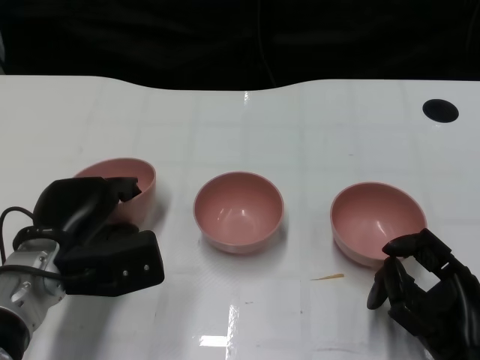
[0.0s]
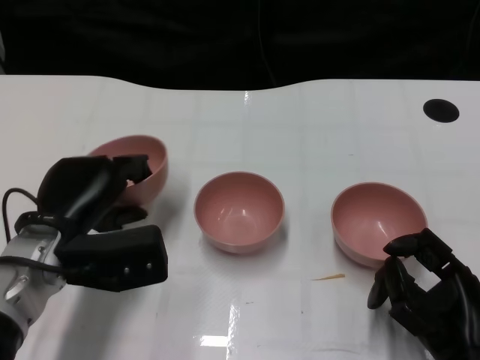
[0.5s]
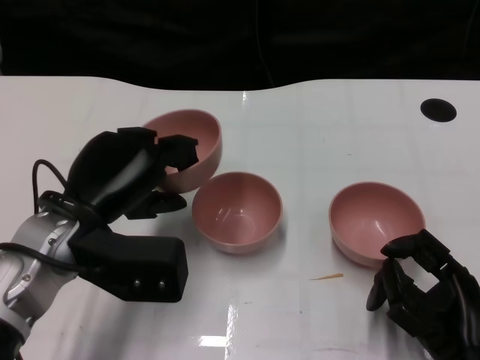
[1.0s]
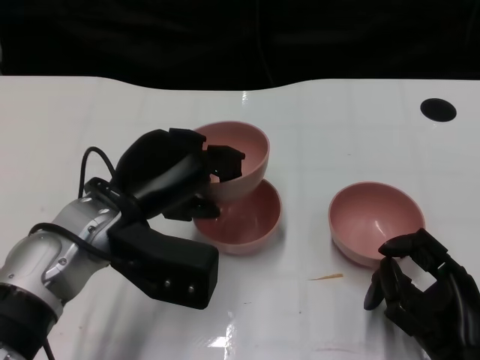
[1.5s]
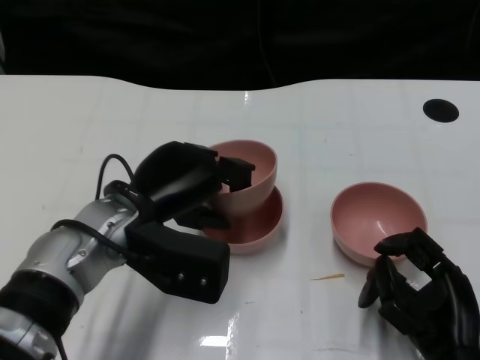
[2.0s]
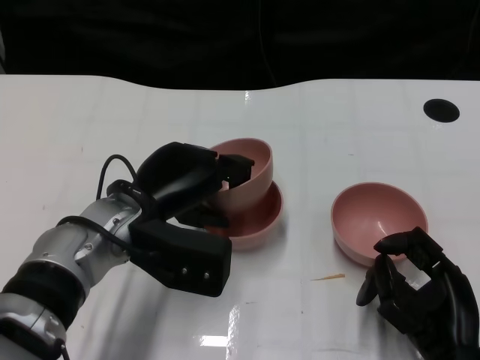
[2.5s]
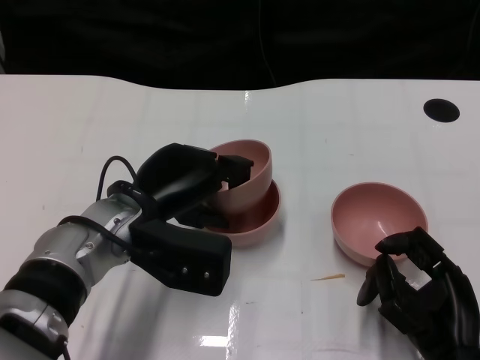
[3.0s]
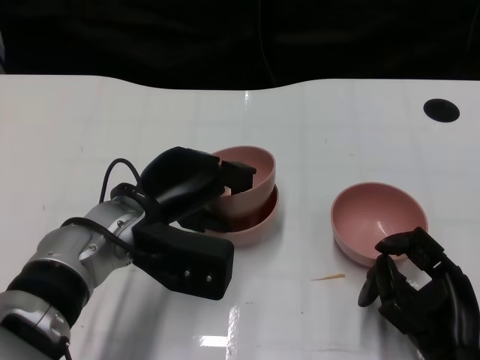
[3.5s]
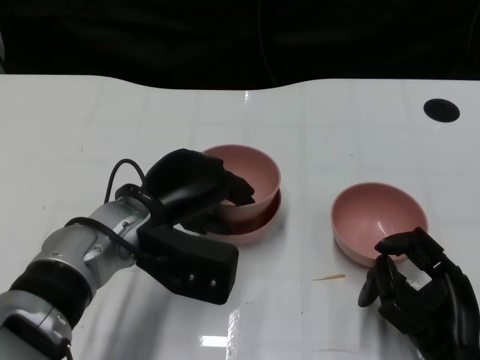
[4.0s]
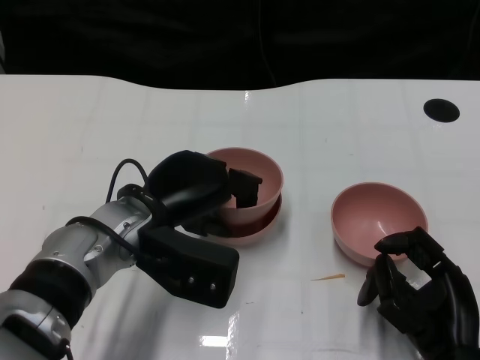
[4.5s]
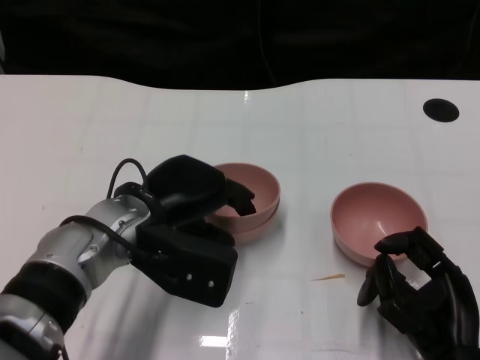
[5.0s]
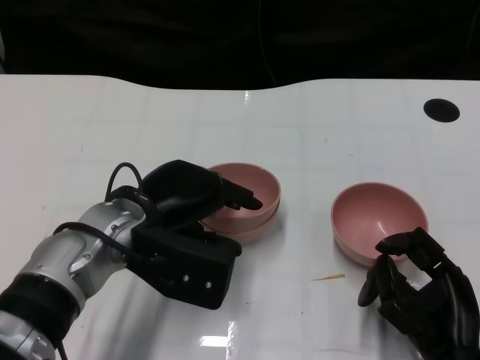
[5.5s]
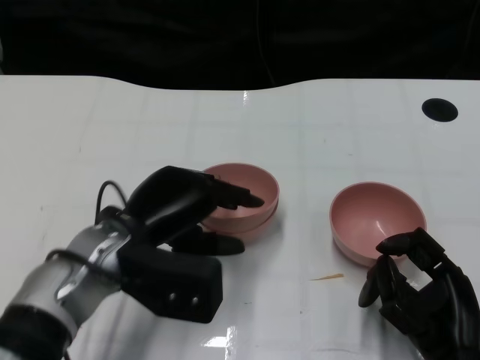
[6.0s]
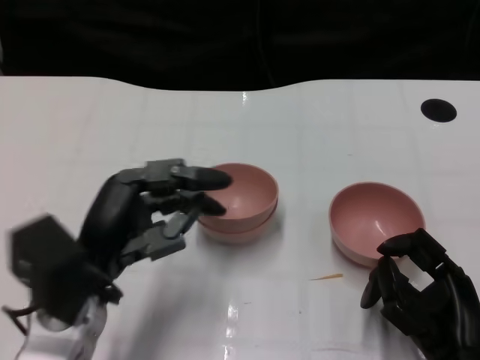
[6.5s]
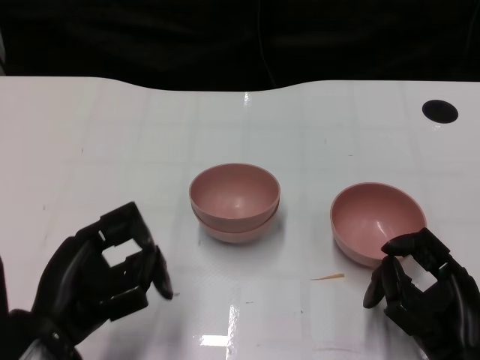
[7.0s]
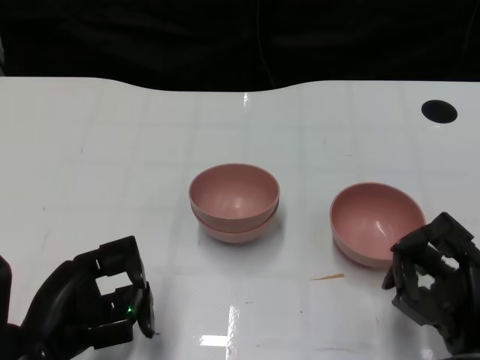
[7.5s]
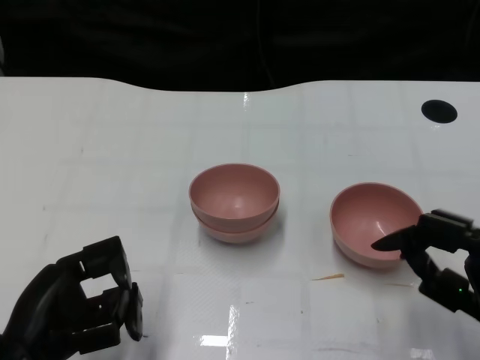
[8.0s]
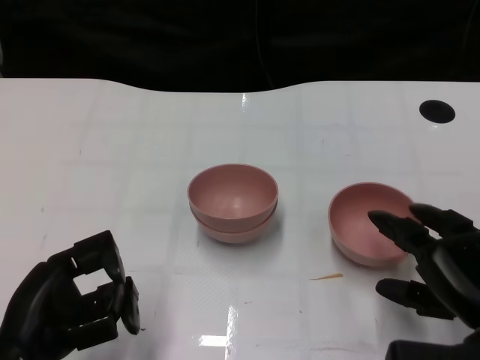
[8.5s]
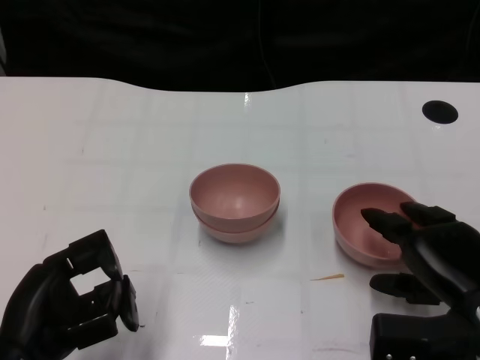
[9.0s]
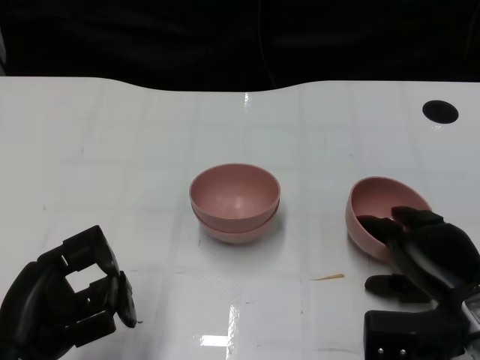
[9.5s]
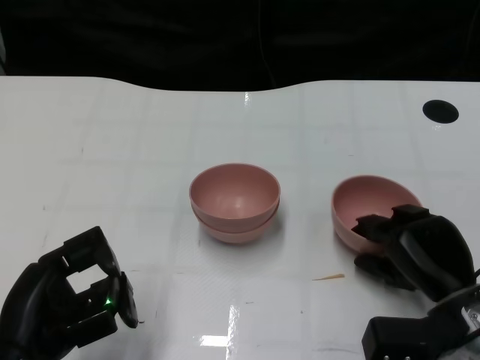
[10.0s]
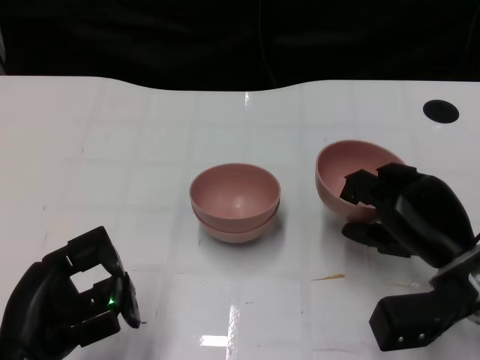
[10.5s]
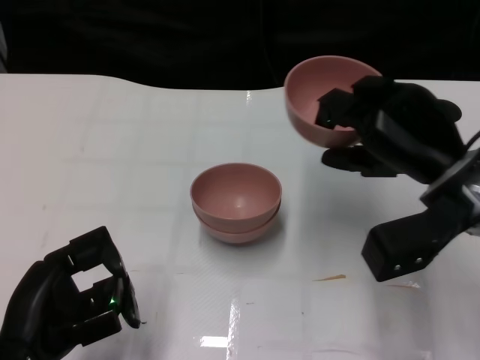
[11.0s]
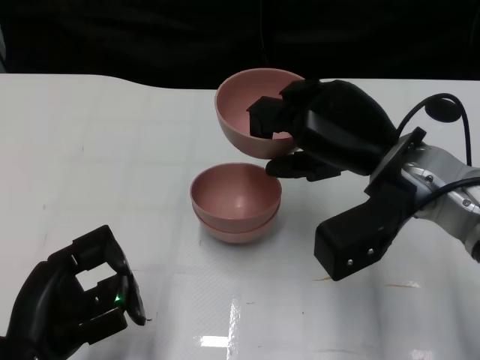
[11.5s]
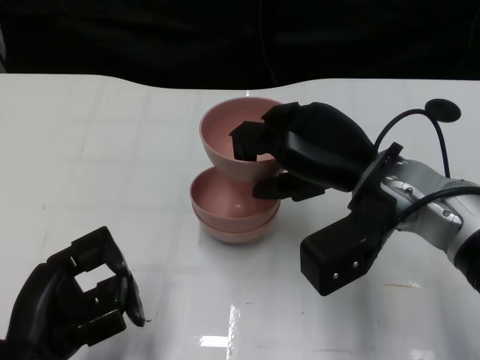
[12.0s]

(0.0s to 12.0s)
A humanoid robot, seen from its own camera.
Task of the whole recording: Pick up the bowl on one side of the table and place it on top of the middle bowl, then pick up the bowl on the other side of the table and place it on top of the middle bowls.
Step, 0.5s - 6.0s: Place the bowl on the left onto the bowl in the middle with left gripper.
Step, 6.5s - 10.0s: Grasp the bowl on the right with the right gripper.
0.0s - 2.0s: The left hand heads to the right and upward, covering approximately 10 cm.
2.0s - 6.0s: The hands move only a little.
6.0s - 8.0s: The left hand shifts roughly 15 cm backward and to the left; the right hand changes place by some 5 cm.
8.0s - 10.0s: The right hand goes about 5 cm forward.
10.0s - 12.0s: The right hand goes roughly 15 cm upward, to the left and forward.

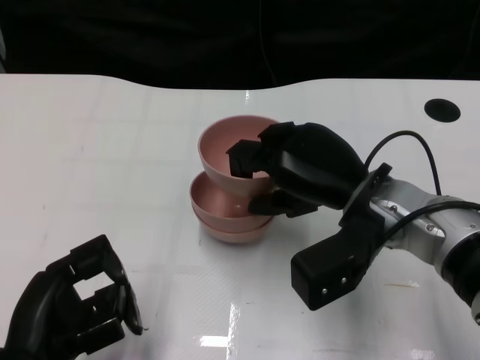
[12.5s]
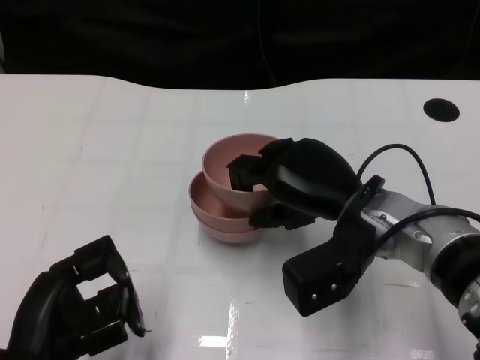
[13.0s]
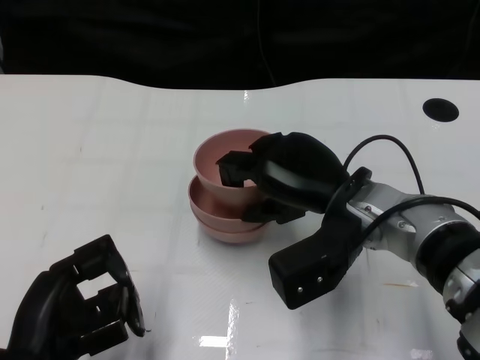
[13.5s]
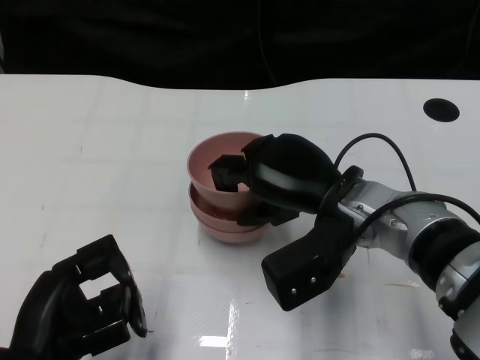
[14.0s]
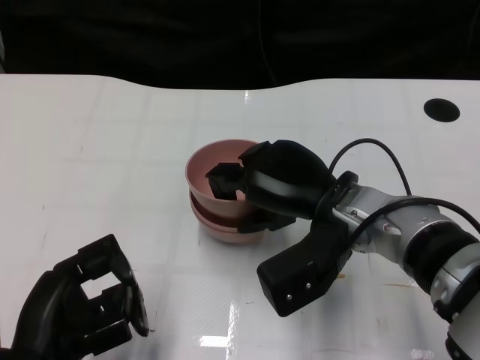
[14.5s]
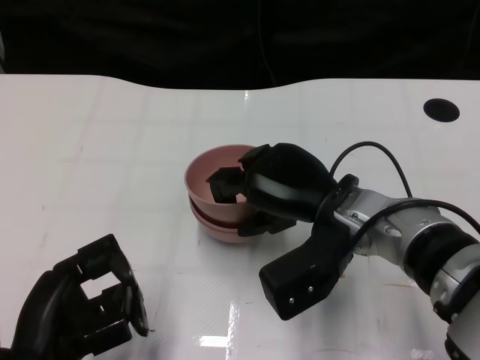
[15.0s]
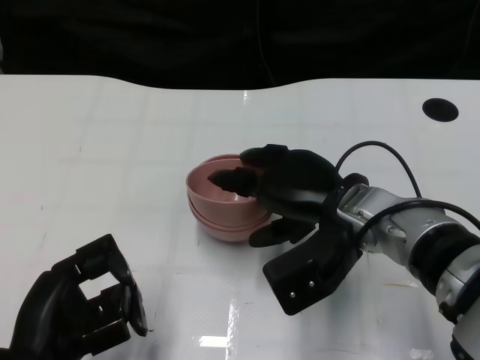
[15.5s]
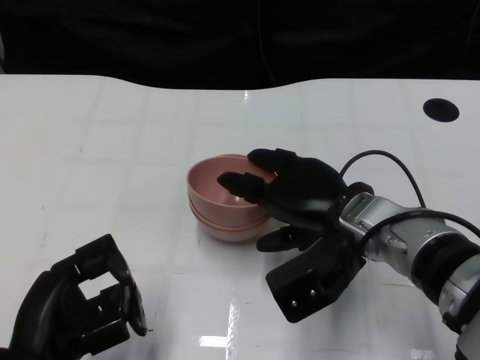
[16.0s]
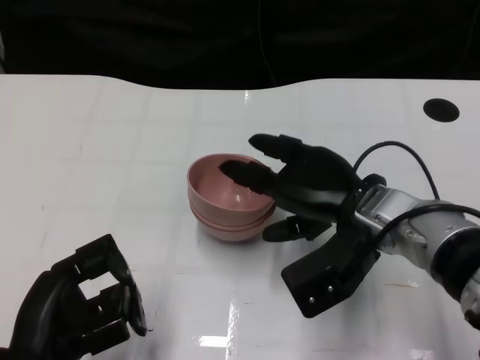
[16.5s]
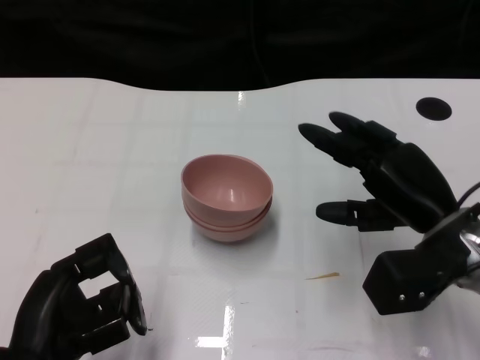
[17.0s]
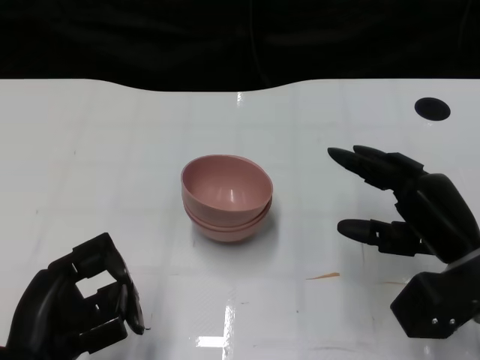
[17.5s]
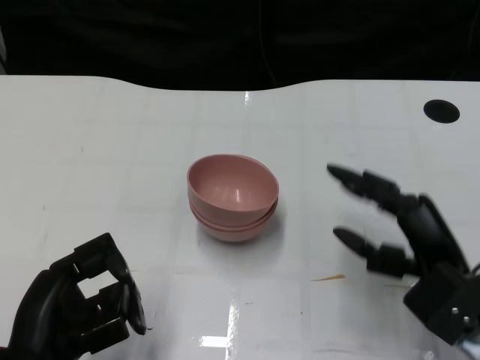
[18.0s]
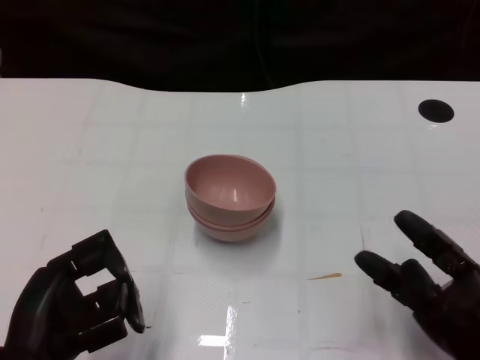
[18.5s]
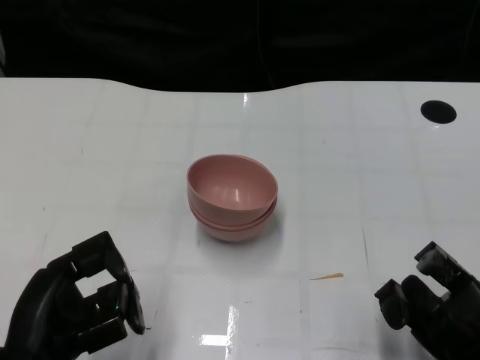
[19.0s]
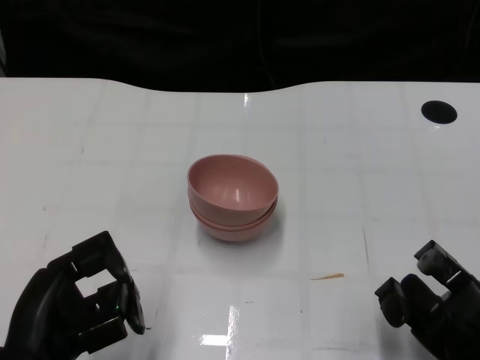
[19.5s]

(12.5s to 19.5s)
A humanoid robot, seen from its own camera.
Task of the whole recording: Pick up the bowl on one side of the table and place it on top of the middle bowl, then pick up the bowl on the other side of the table and place it on top of the middle bowls.
Step, 12.5s - 16.5s: Place the bowl on the right onto the bowl in the middle with right gripper.
14.5s - 16.0s: There are only small adjustments of the hands.
16.0s - 17.5s: The right hand travels to the right by roughly 10 cm.
17.5s - 19.5s: The right hand moves backward, some 10 cm.
